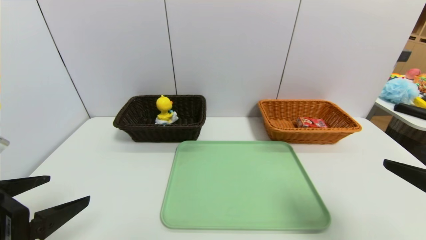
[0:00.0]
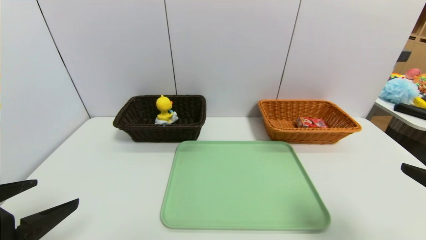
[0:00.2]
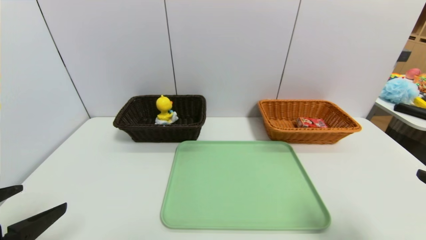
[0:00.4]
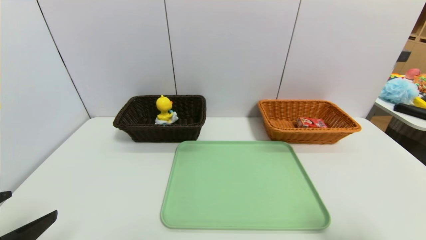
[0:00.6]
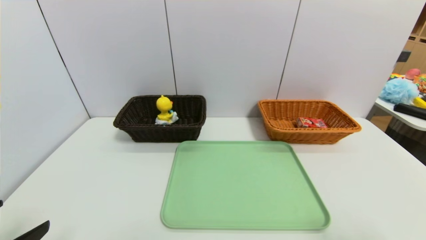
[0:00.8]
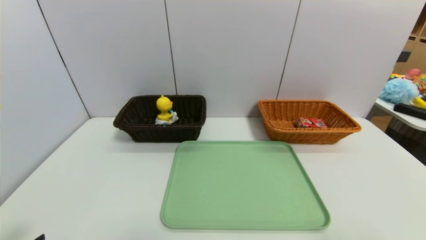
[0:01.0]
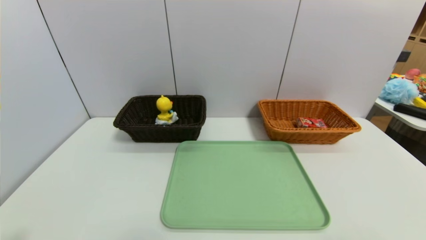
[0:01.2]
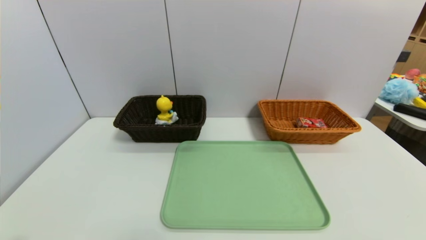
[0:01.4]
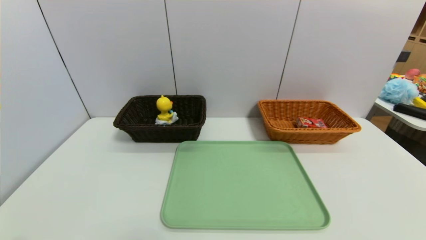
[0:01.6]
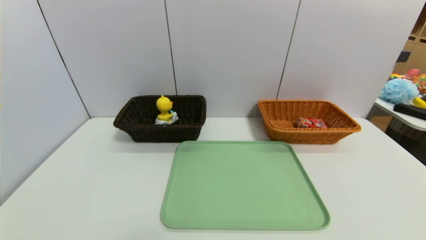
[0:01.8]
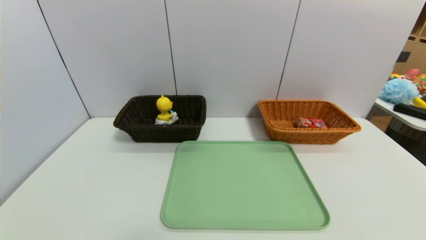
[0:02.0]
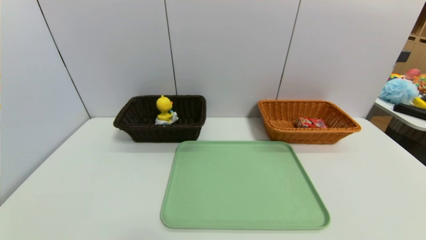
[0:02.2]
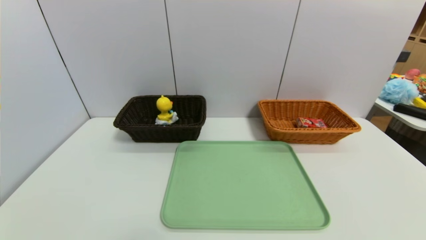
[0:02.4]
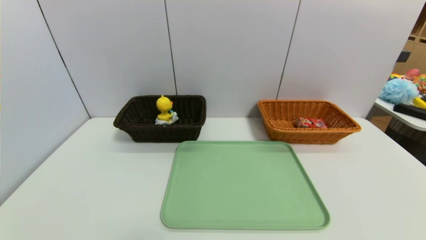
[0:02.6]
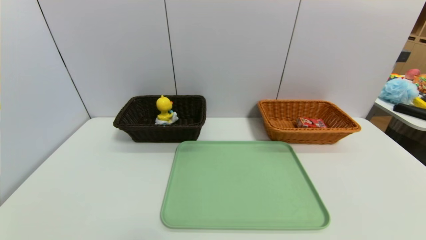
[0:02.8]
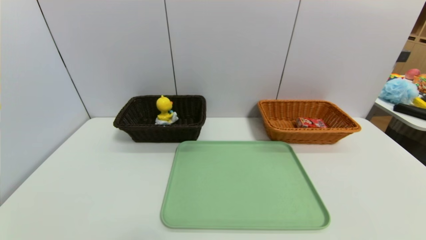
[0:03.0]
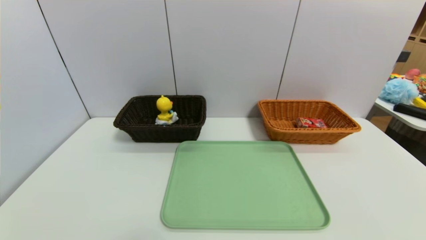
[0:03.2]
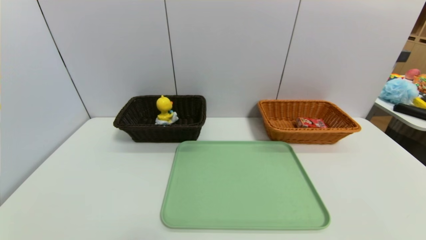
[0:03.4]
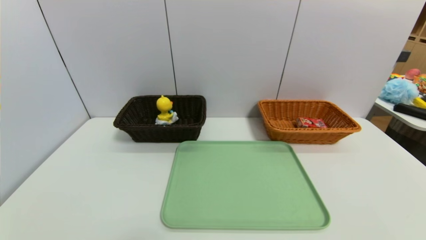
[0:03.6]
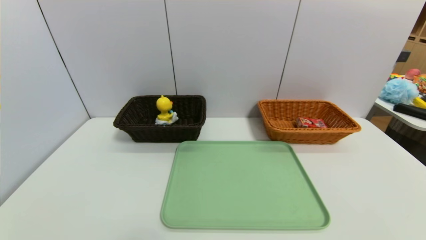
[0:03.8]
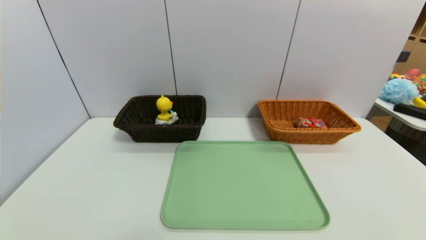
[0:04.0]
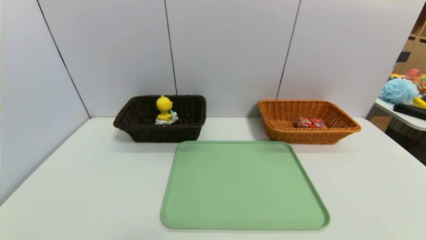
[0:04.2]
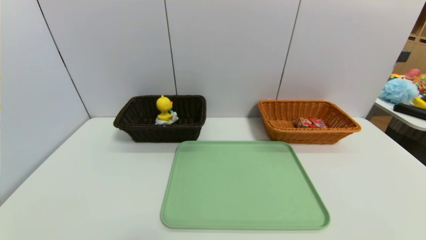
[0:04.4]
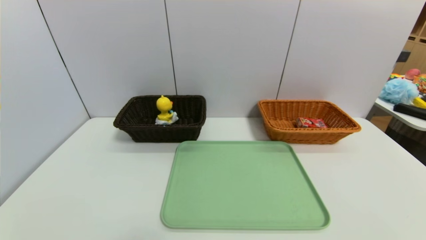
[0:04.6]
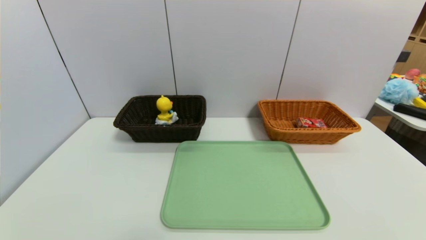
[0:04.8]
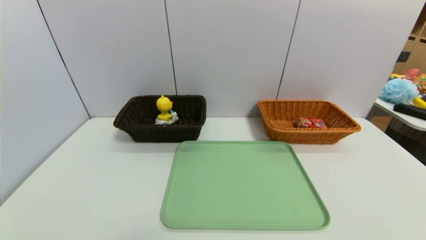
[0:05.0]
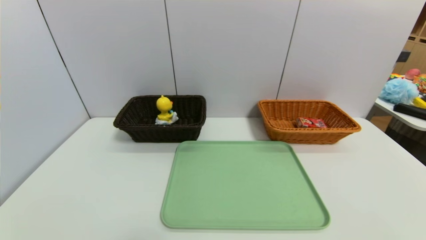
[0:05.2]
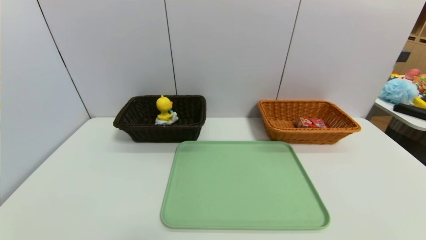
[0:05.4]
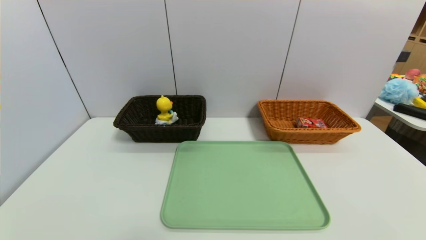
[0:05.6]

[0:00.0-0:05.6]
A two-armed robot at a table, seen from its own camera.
Task of the whole recording: place the food in the right basket with the right gripper, and place the non food items in the left basket with the left gripper.
0:00.0 to 0:01.4: The two grippers go roughly 10 cm backward and downward.
0:04.2 to 0:05.6: Both grippers stay about where they are.

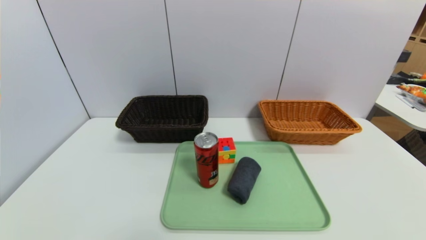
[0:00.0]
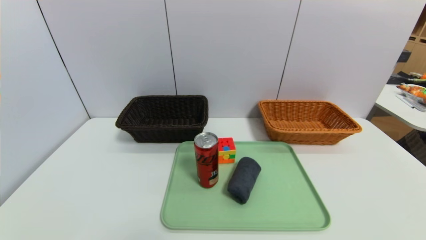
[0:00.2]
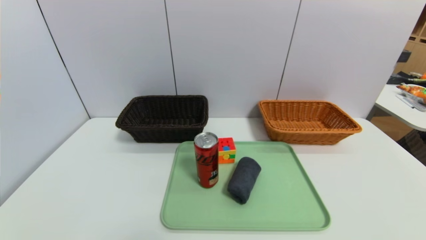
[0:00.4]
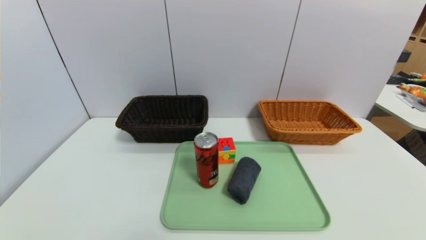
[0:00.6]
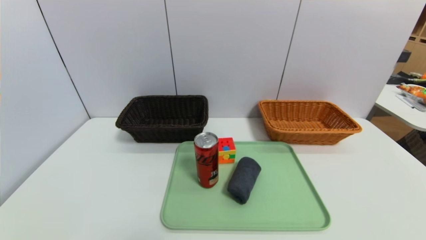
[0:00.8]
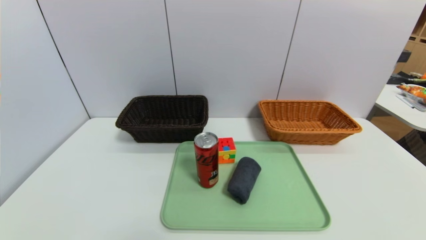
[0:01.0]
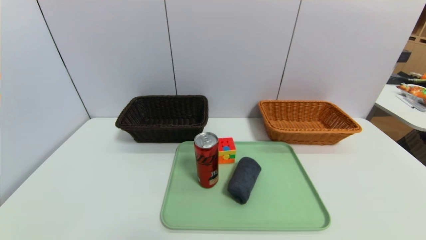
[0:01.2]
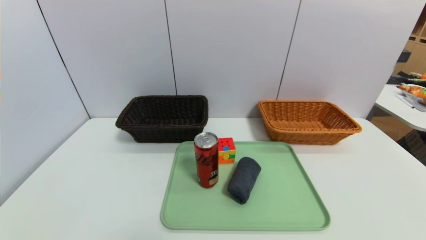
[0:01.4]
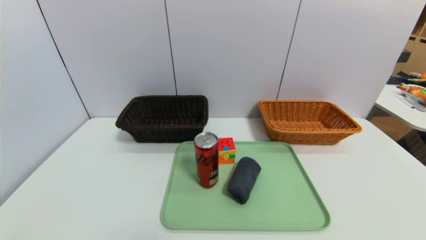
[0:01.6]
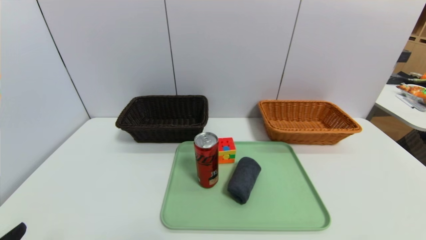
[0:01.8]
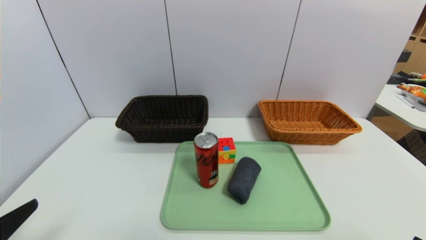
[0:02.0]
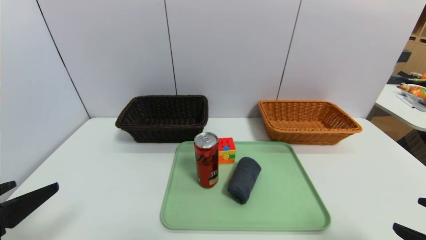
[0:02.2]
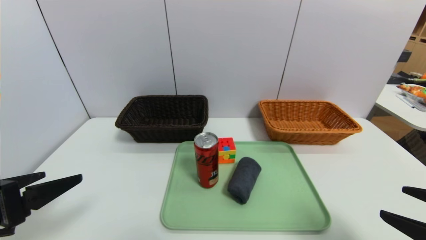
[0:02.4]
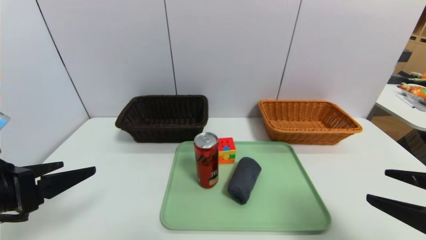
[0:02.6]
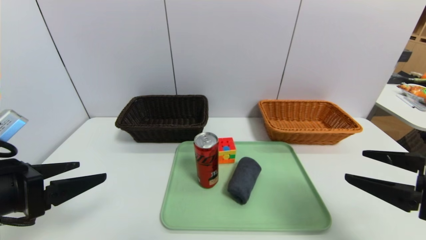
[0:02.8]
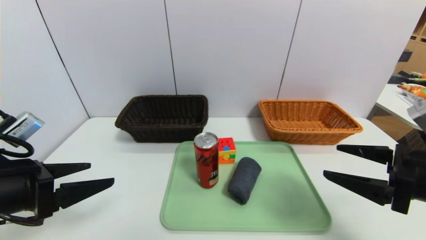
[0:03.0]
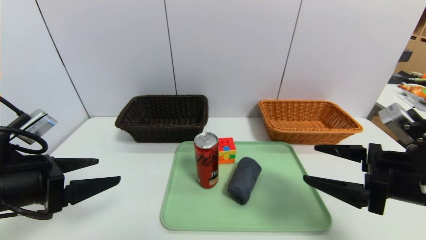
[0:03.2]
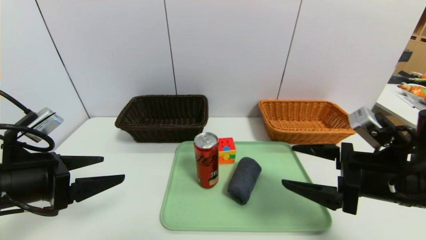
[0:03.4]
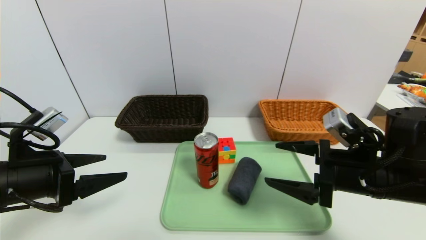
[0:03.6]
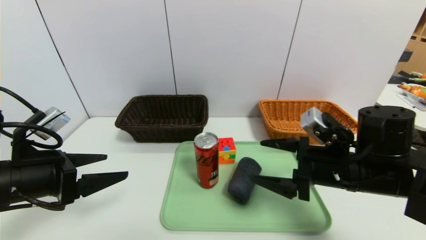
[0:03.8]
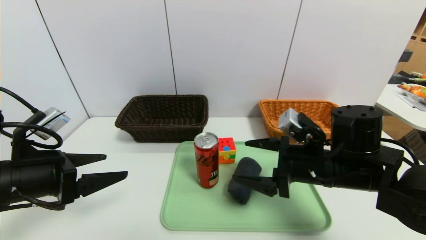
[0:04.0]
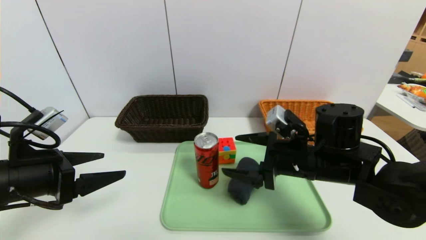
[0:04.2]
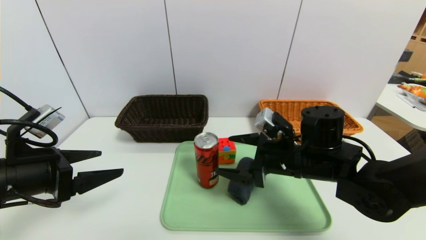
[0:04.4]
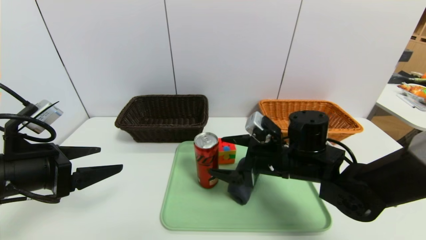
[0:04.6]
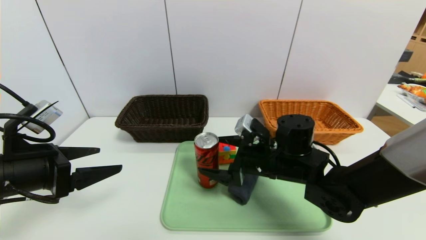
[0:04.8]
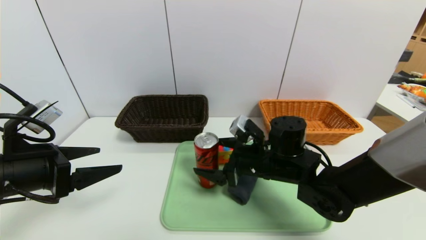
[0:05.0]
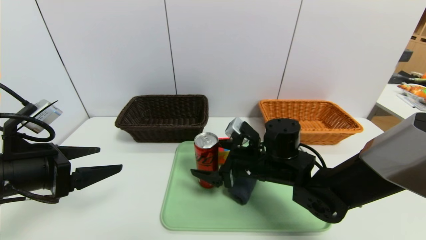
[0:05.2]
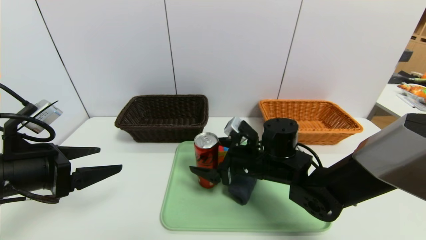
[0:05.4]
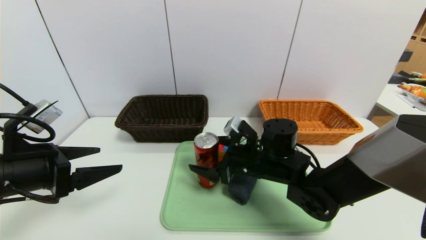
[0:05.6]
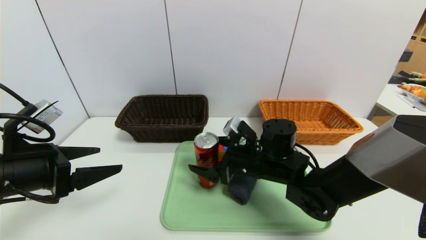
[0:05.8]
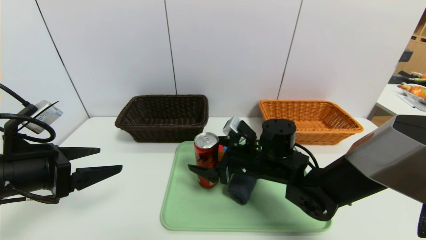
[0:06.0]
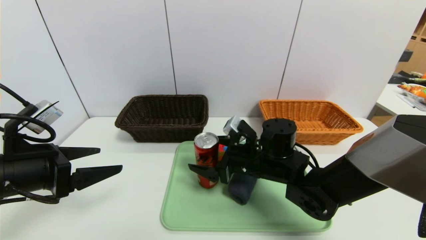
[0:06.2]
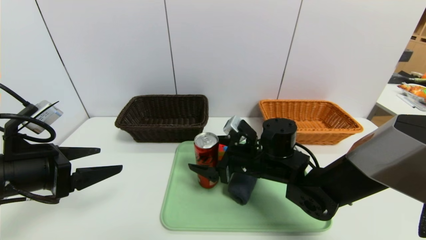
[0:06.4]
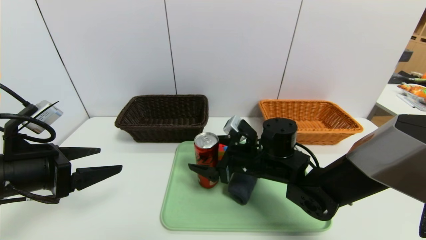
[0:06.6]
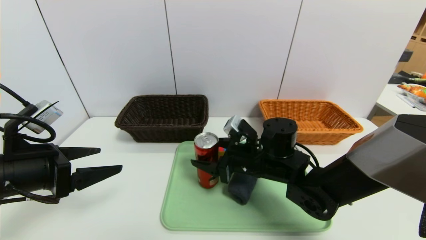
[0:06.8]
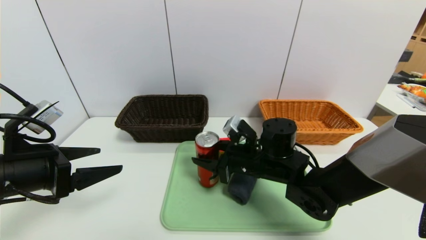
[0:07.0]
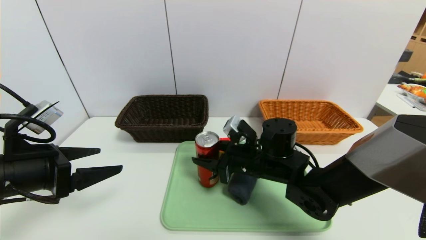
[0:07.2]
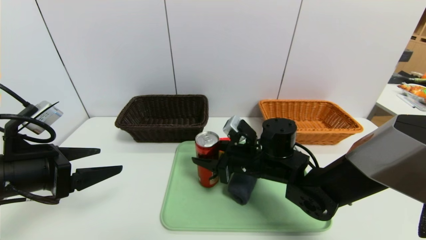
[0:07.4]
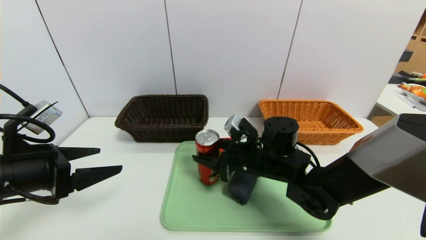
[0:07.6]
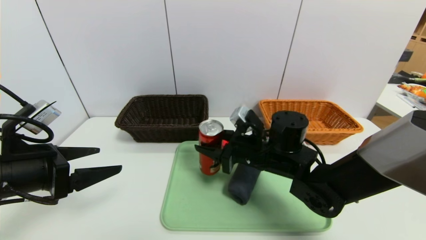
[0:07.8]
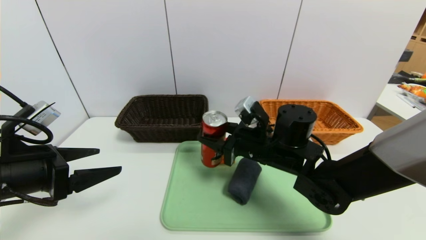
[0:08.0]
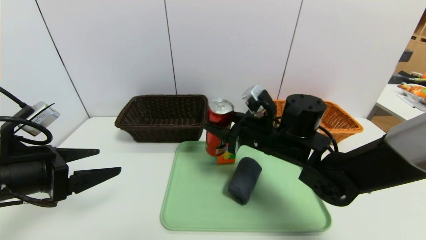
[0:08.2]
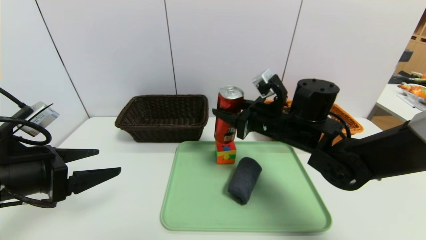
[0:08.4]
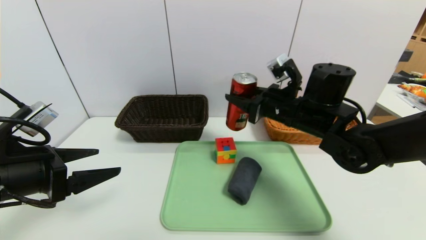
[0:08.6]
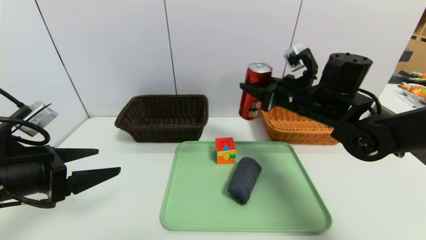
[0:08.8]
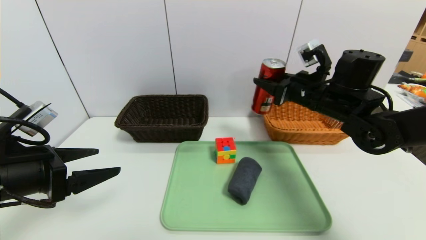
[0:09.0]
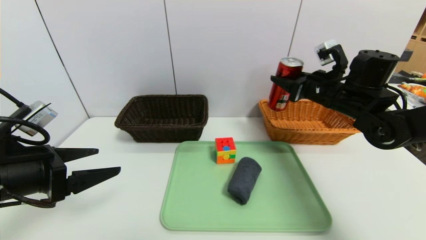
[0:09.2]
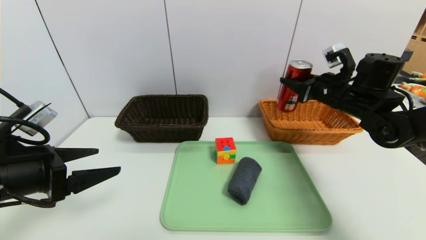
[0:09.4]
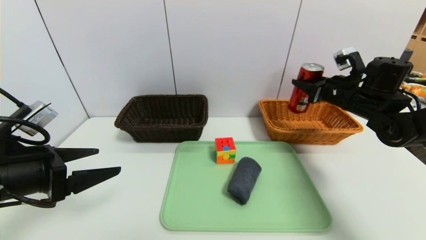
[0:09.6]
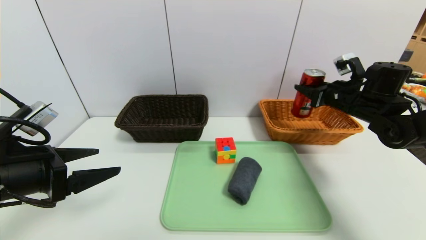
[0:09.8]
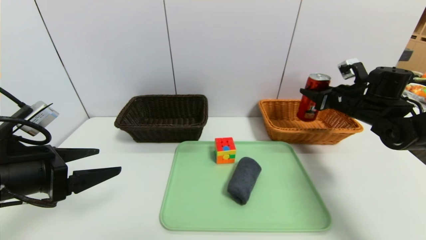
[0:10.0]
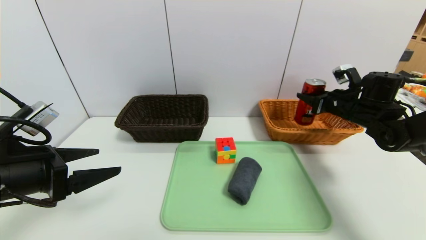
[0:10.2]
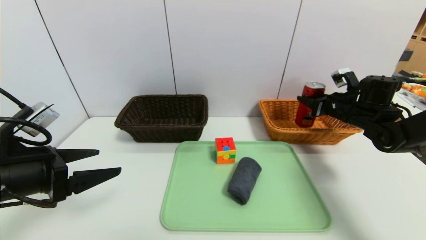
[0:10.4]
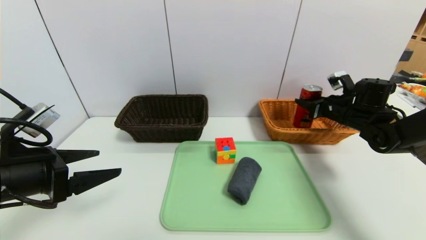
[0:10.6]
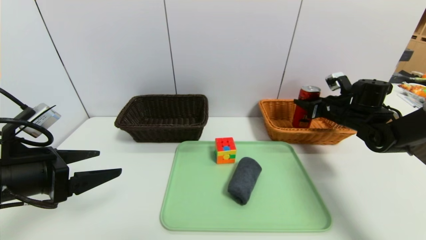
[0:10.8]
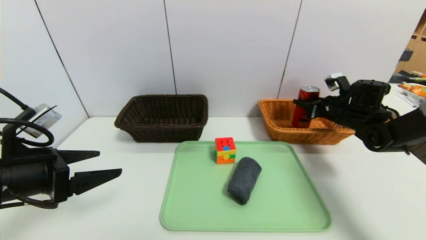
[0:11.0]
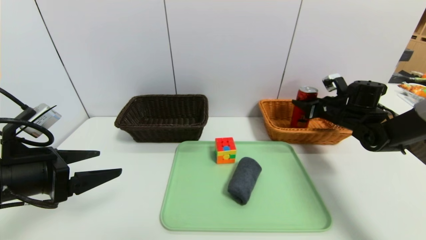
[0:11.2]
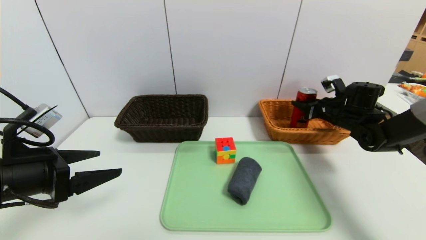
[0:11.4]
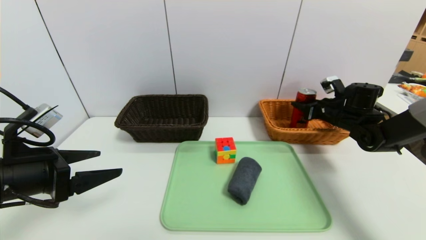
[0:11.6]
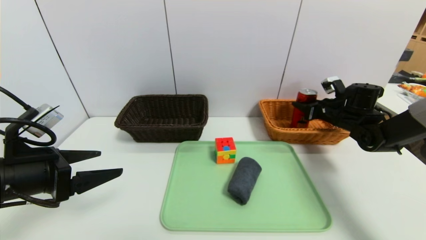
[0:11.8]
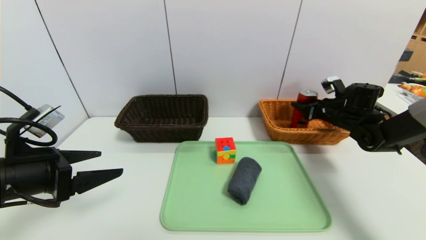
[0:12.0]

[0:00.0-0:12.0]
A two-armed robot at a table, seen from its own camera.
Task of the whole recording: place the food in the right basket with the right gripper, and place the non food items in the left basket with the left gripper.
0:01.6 to 0:03.0: Both grippers move forward, roughly 15 cm.
0:03.0 to 0:04.4: The right gripper shifts about 20 cm to the left and forward.
0:04.4 to 0:06.0: The right gripper travels to the left by about 5 cm.
0:06.0 to 0:07.6: The right gripper closes.
0:07.6 to 0:09.0: The right gripper goes approximately 20 cm to the right, upward and forward.
0:09.0 to 0:10.4: The right gripper goes about 15 cm to the right and downward.
0:10.4 to 0:12.0: There are only small adjustments of the grippers.
